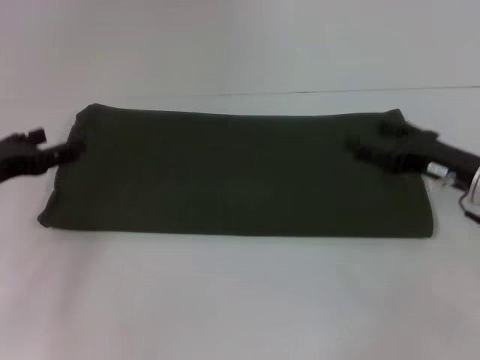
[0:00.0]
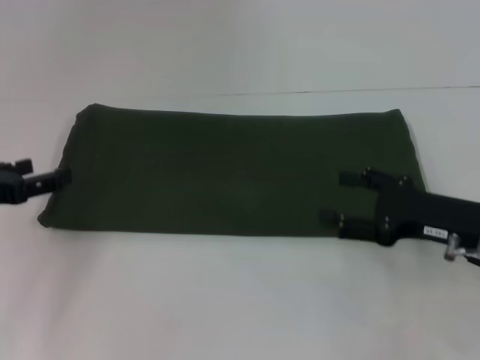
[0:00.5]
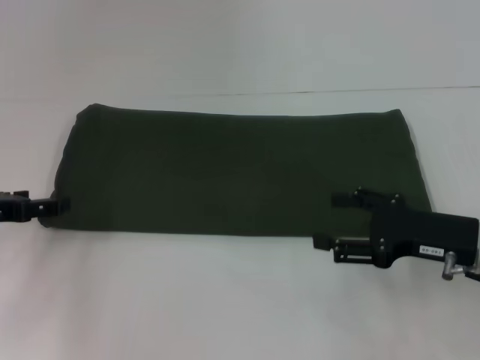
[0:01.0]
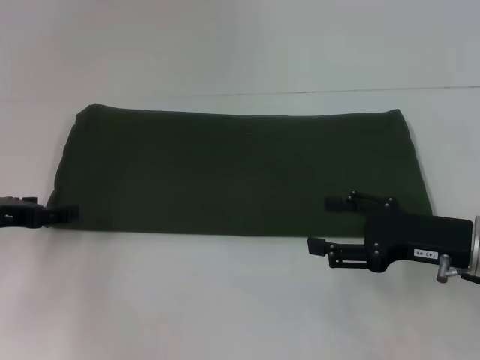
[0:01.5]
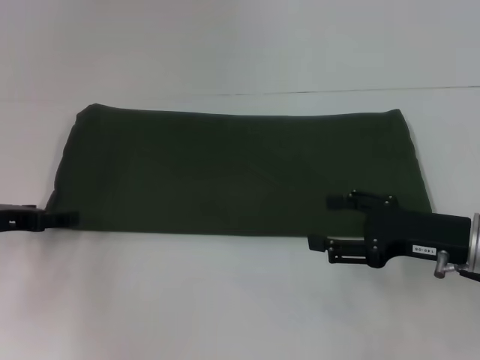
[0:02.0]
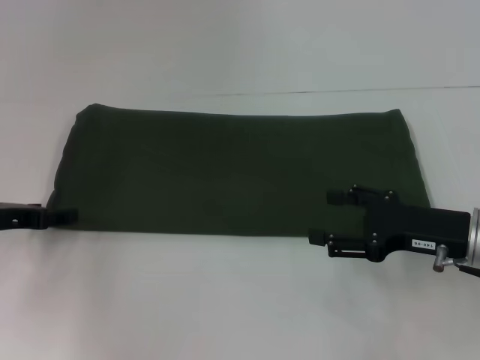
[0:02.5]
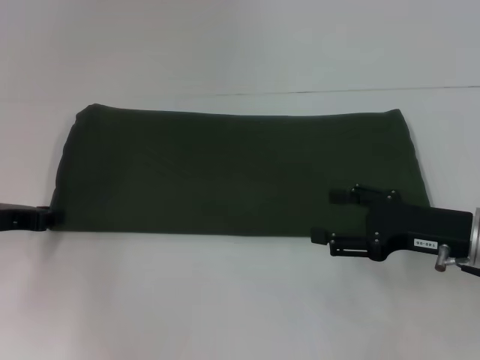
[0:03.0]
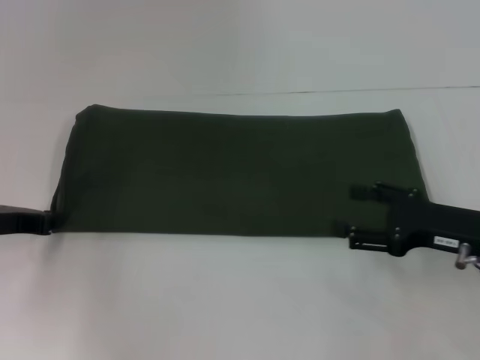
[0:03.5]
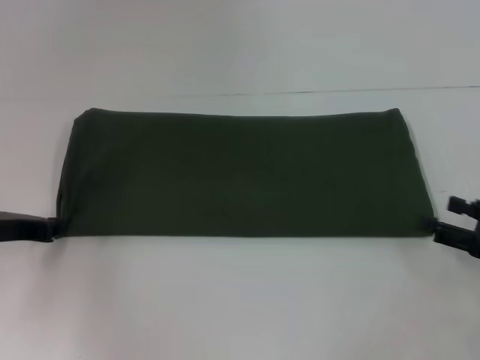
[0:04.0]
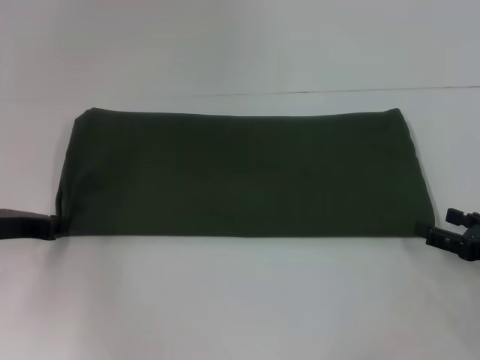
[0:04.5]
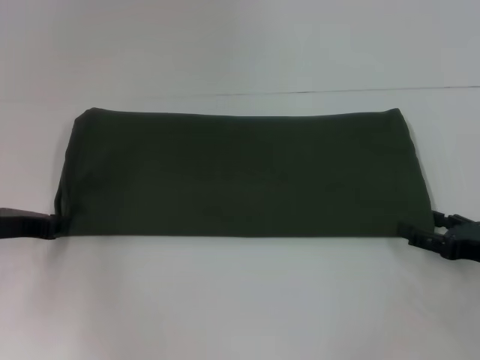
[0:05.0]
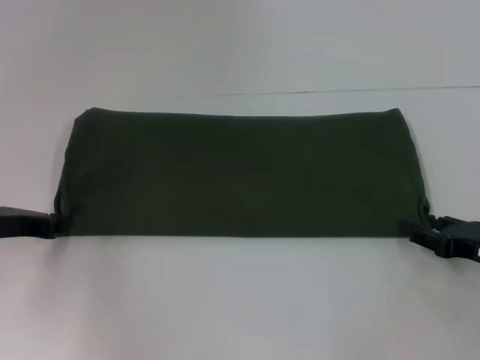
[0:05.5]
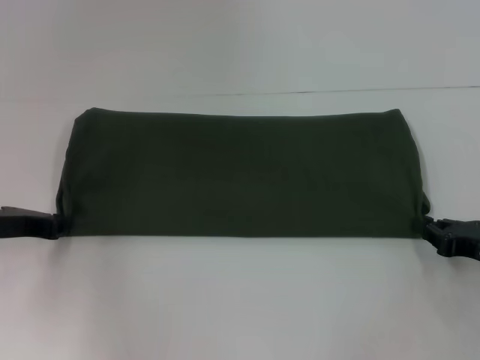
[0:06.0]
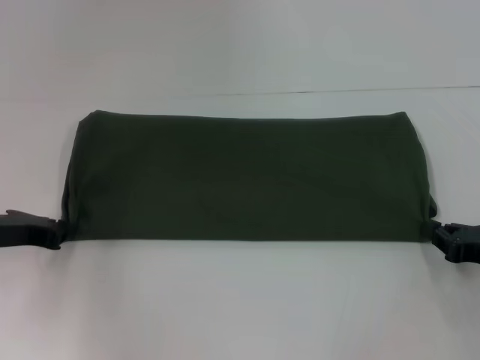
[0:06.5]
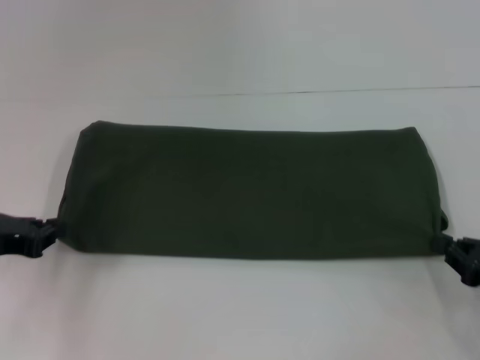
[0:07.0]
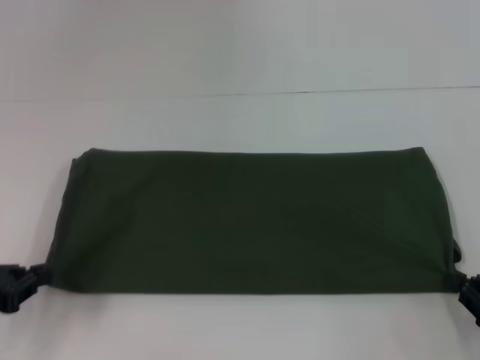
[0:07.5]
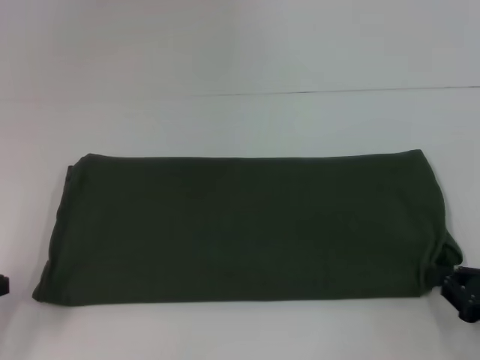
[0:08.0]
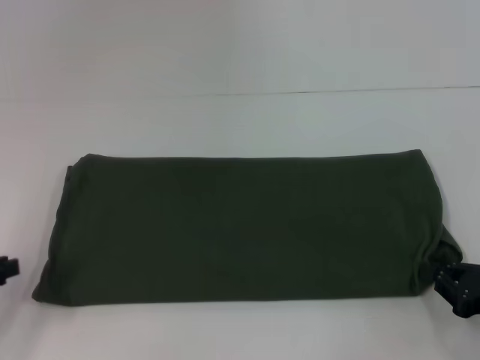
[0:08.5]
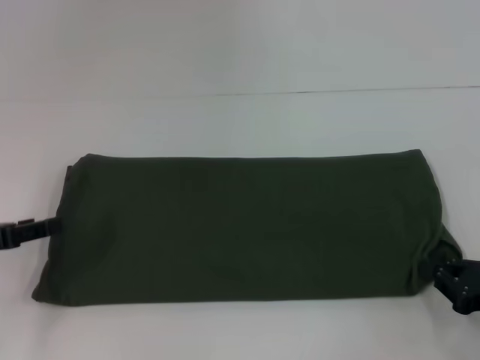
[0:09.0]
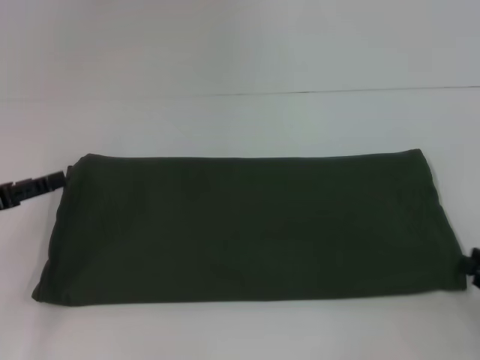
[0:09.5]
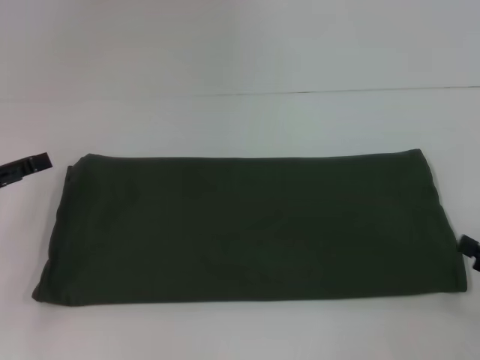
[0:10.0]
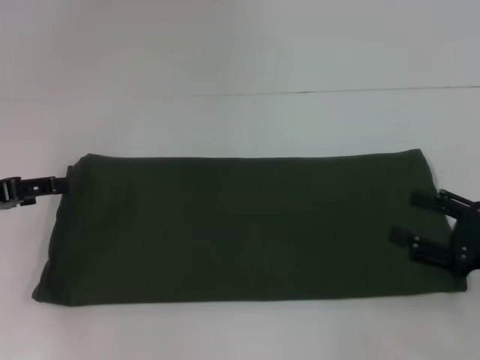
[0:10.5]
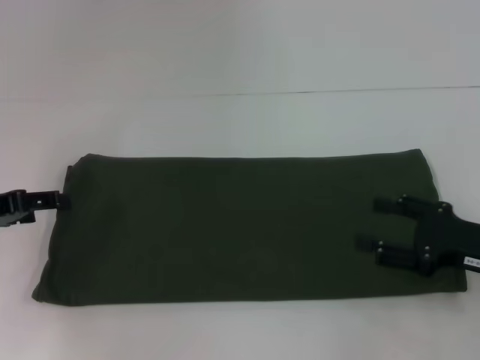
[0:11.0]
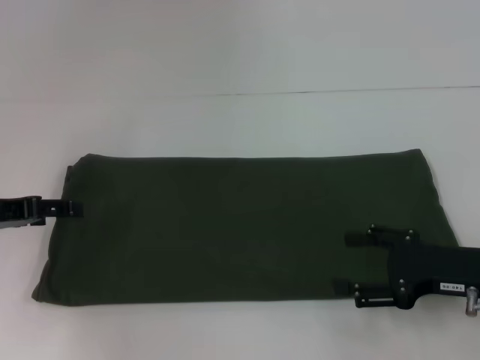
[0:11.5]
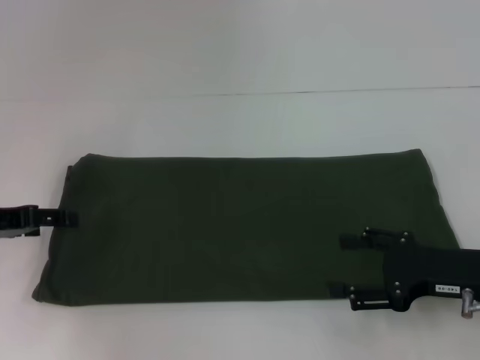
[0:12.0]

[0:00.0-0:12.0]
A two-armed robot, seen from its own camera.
0:00.0 to 0:02.0: The right gripper travels backward by about 5 cm.
0:02.0 to 0:04.0: The left gripper closes its fingers; the right gripper travels to the right by roughly 10 cm.
0:04.0 to 0:06.0: The right gripper closes.
0:06.0 to 0:08.0: The right gripper heads backward, covering approximately 5 cm; the left gripper is displaced backward and to the left by approximately 15 cm.
0:08.0 to 0:10.0: The left gripper shifts roughly 10 cm forward, and opens its fingers. The right gripper opens.
0:10.0 to 0:12.0: The right gripper is displaced to the left and forward by approximately 10 cm, and opens.

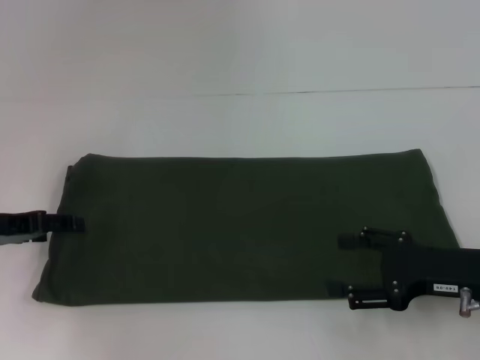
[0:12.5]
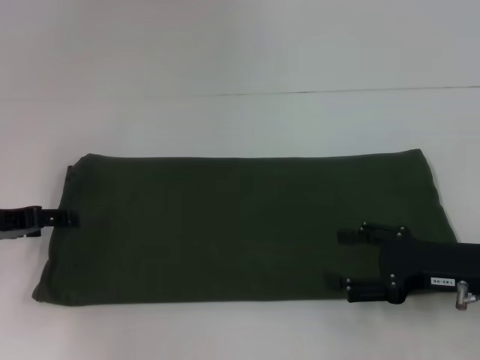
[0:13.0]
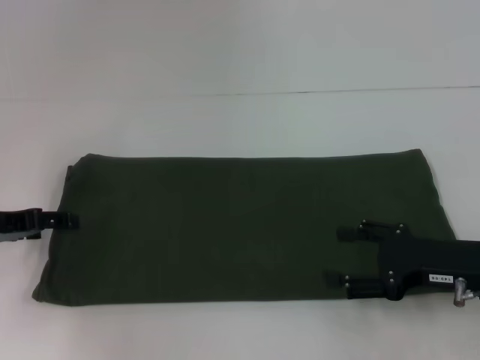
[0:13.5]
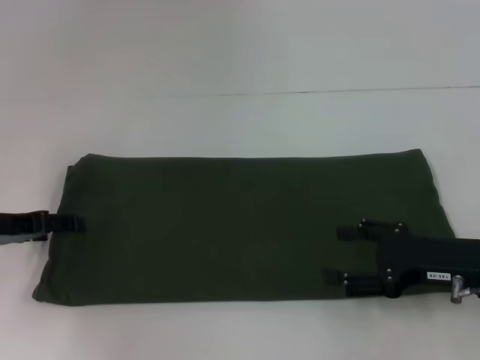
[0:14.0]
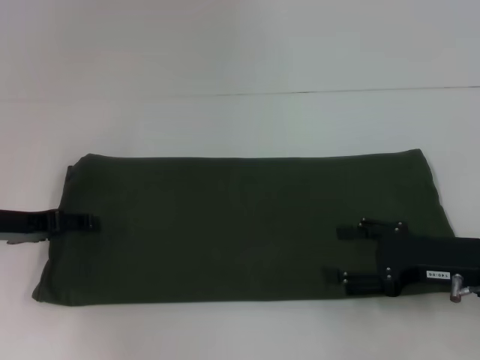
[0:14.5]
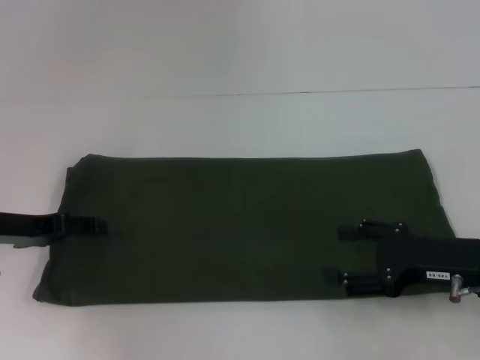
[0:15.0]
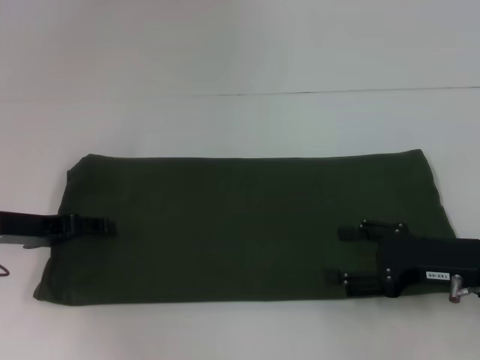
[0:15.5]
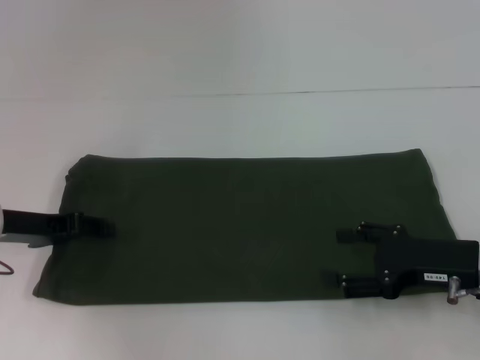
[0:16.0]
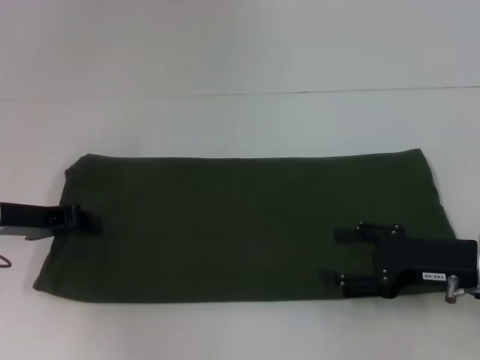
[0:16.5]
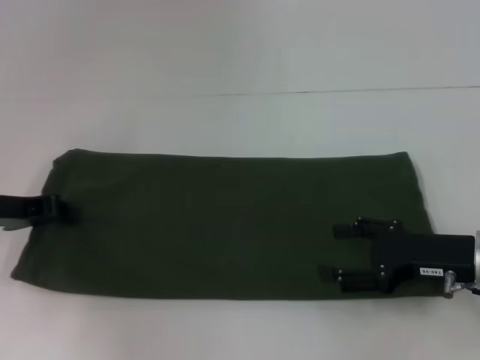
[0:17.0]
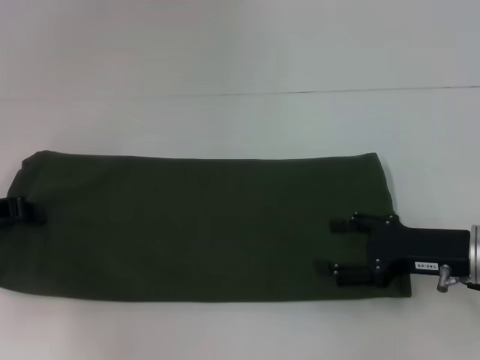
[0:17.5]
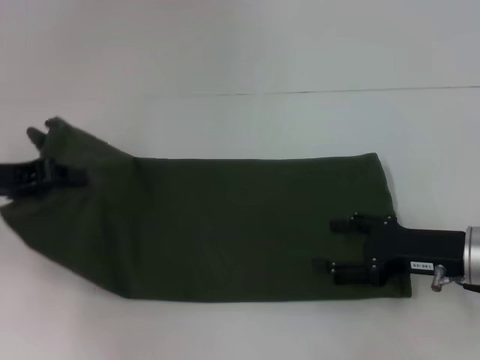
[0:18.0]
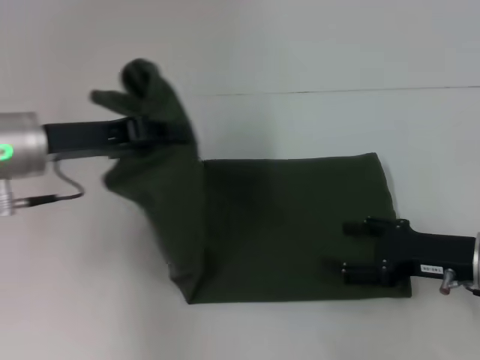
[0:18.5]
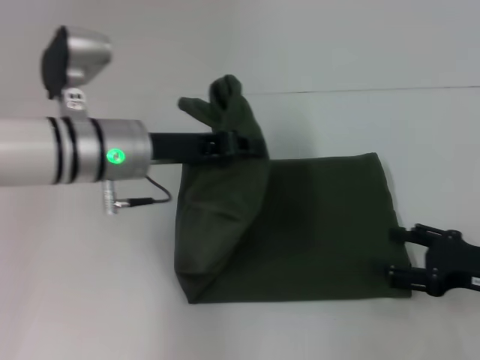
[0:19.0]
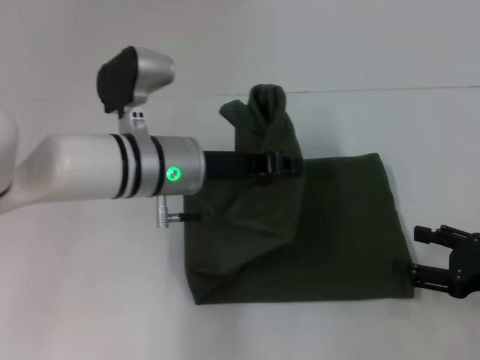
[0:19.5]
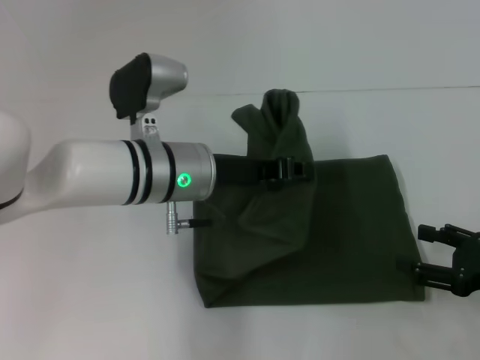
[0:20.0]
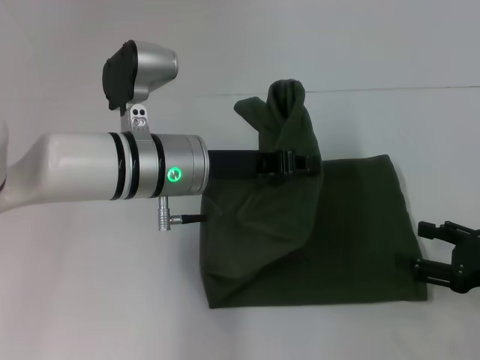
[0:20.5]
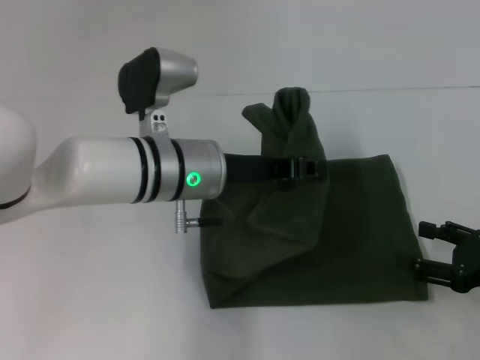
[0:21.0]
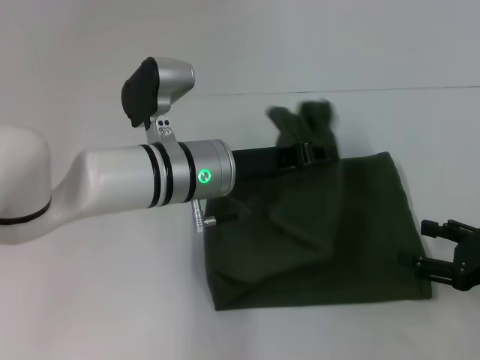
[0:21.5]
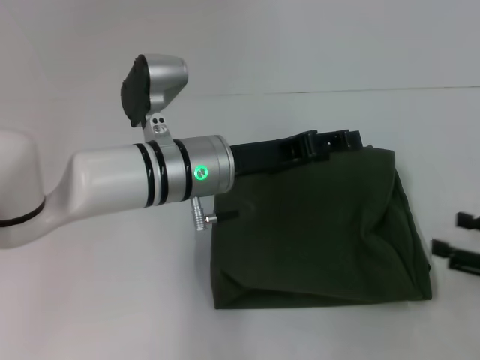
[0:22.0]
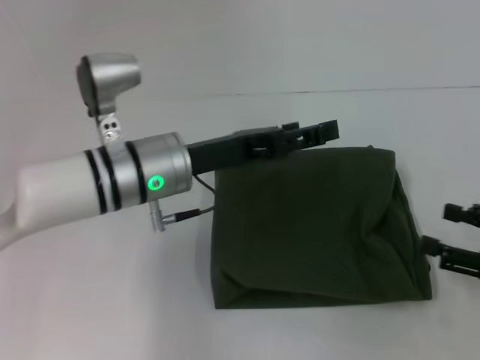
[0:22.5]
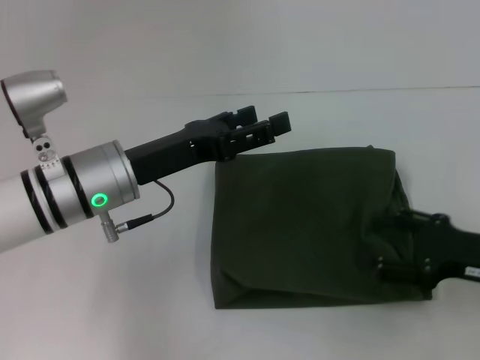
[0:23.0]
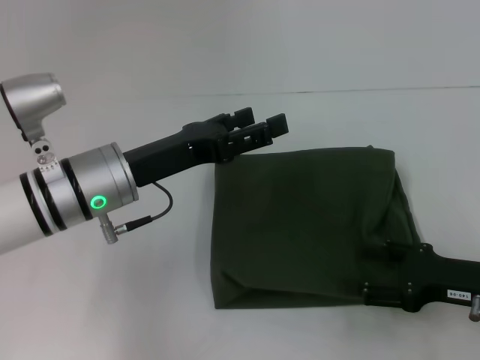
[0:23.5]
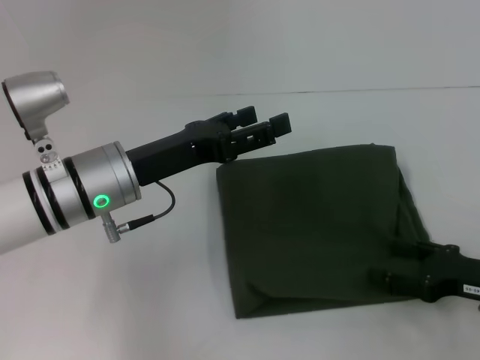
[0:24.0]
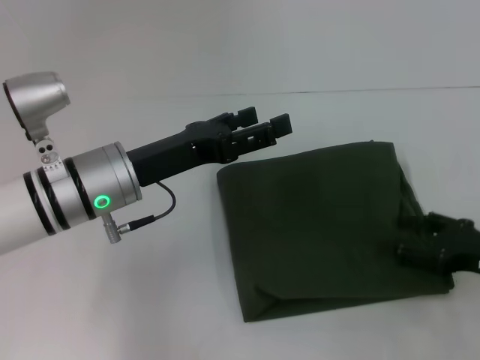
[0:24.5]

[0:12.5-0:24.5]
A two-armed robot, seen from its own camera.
Step, 0:12.5 to 0:22.5: Fold the clothes with your left hand.
0:12.5 to 0:14.5: There are only small adjustments of the grippers.
0:14.5 to 0:16.5: The left gripper closes.
0:16.5 to 0:18.5: The left gripper goes some 10 cm upward and to the right.
0:18.5 to 0:20.5: The right gripper heads to the right, covering approximately 5 cm, while the left gripper goes about 15 cm to the right.
0:20.5 to 0:22.5: The left gripper opens.
0:22.5 to 0:24.5: The right gripper moves some 5 cm.

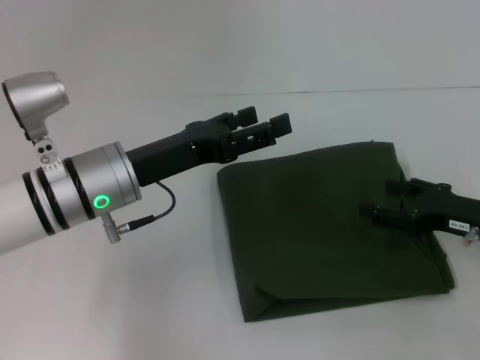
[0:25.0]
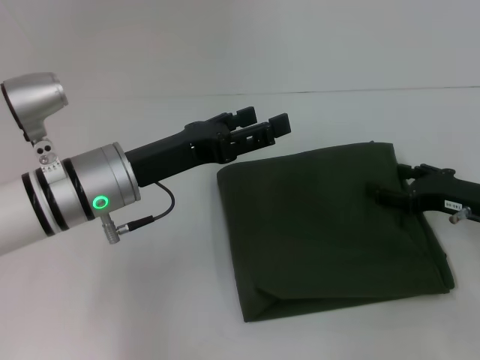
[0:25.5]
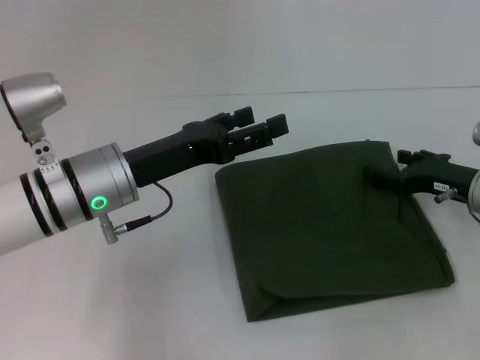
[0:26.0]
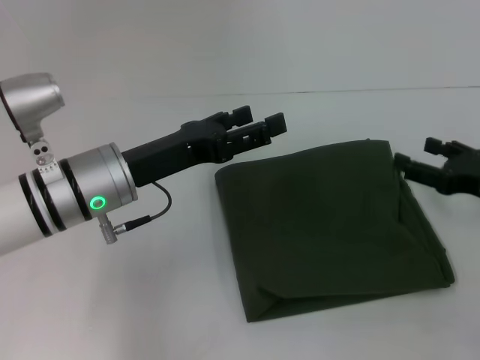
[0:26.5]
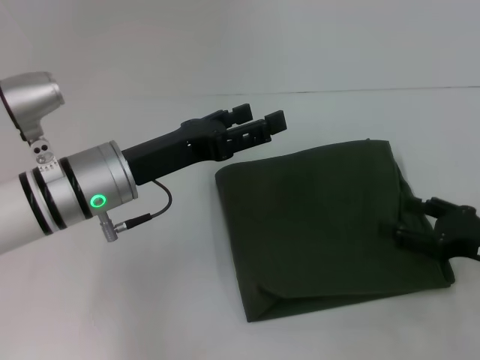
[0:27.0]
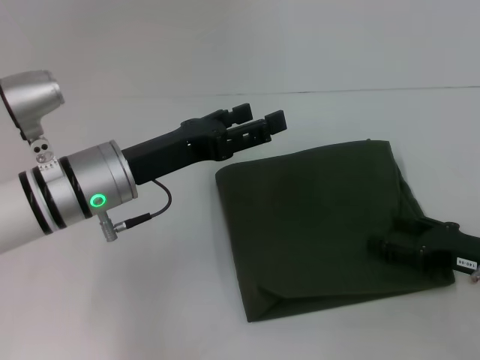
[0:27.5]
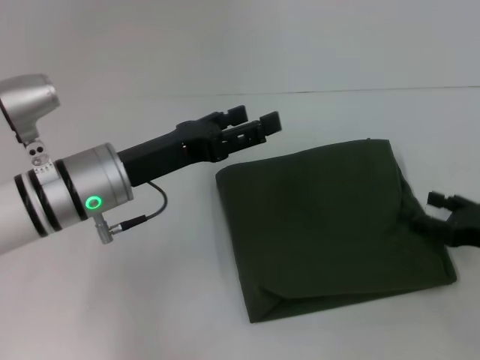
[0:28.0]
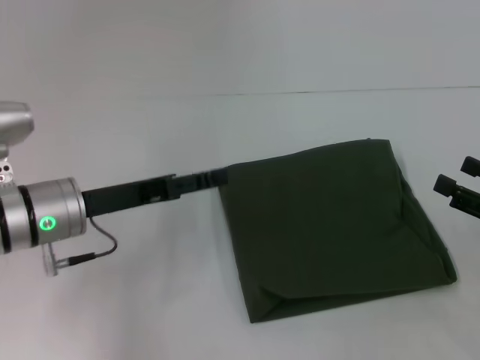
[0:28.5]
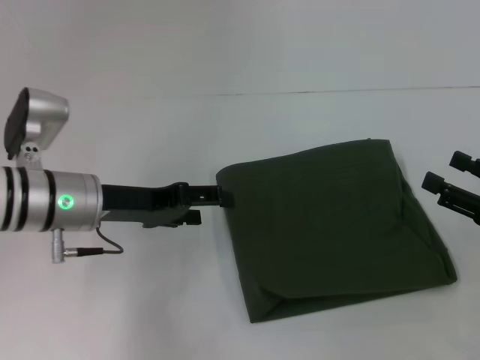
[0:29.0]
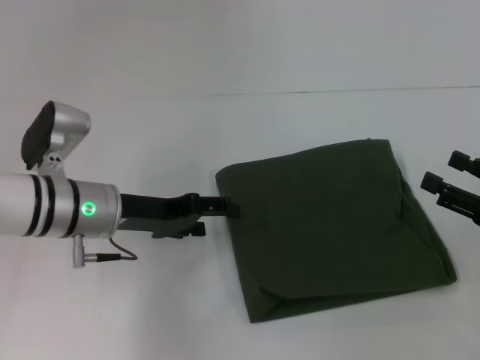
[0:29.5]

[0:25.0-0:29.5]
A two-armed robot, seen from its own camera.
0:25.0 to 0:27.0: There are only small adjustments of the grippers.
